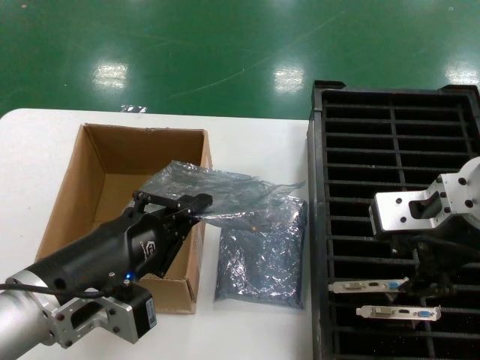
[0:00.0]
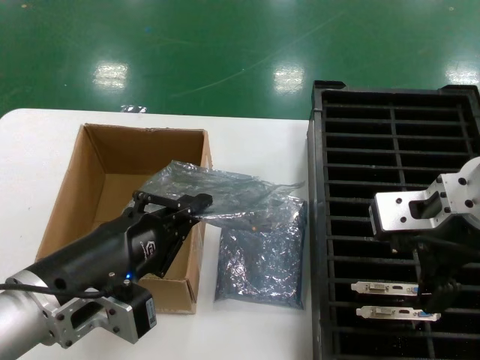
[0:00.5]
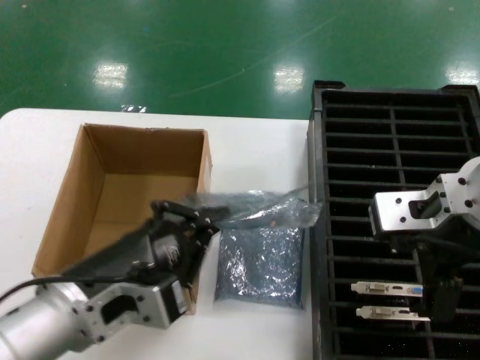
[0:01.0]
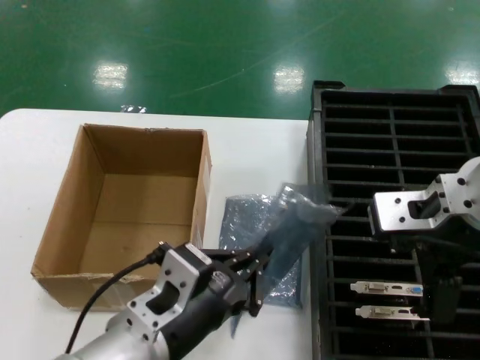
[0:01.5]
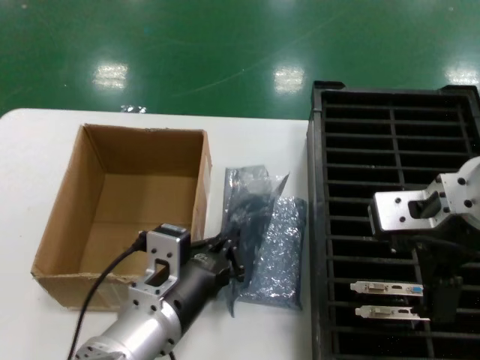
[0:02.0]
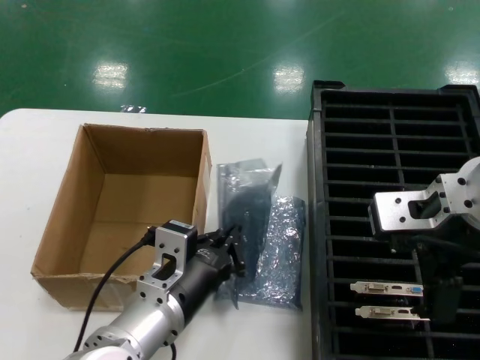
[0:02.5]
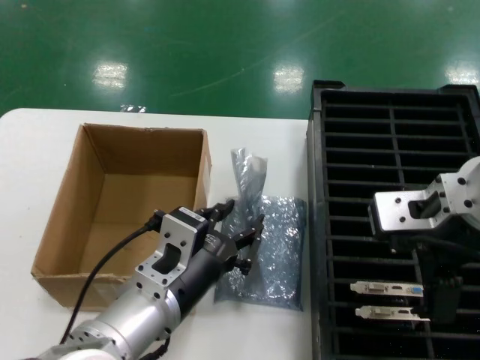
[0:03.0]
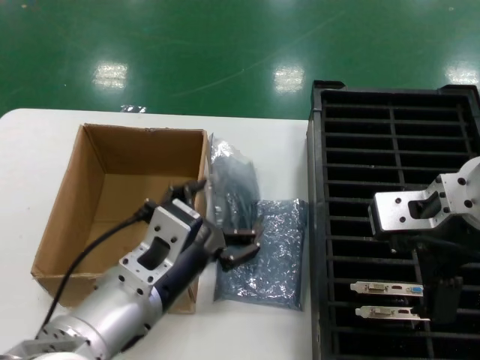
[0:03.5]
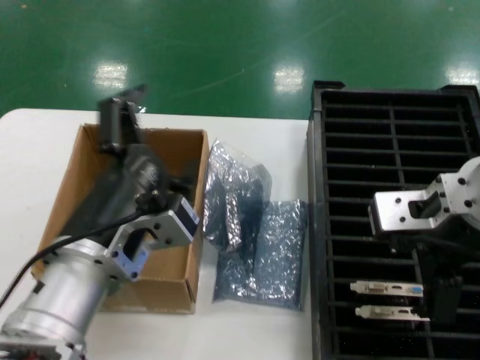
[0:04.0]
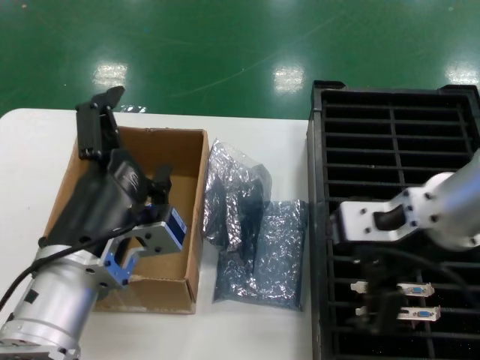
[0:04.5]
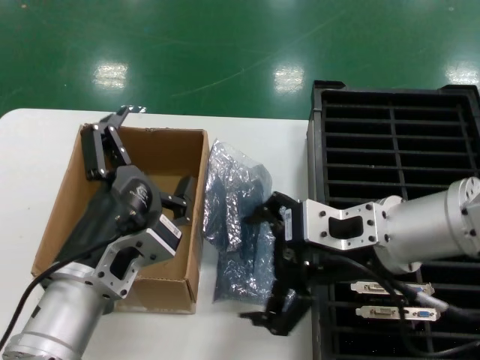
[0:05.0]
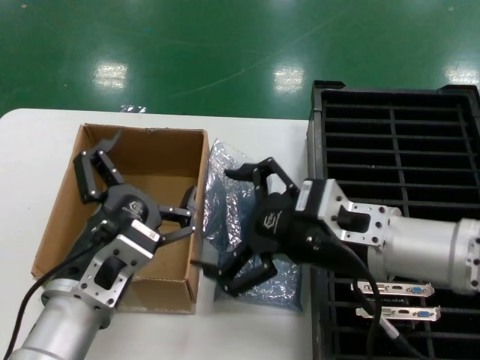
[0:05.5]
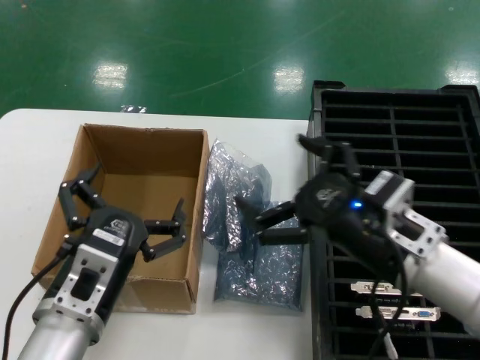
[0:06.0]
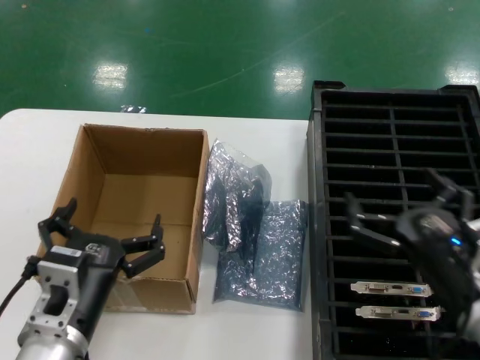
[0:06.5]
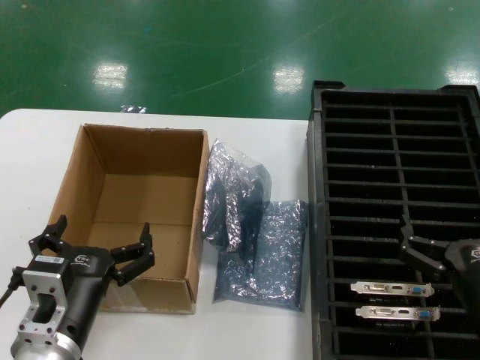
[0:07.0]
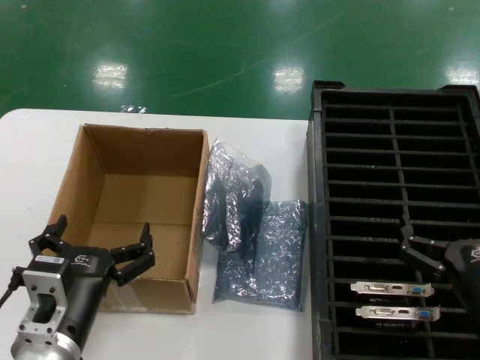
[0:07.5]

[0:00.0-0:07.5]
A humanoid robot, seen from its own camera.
Task of the whole recording: take out graphics card from box remove packaging put into black container.
Step, 0:00.5 to 0:03.0: Place the down the bag.
0:00.0 to 0:02.0: The left hand is displaced to the right and downward by roughly 10 cm.
0:02.0 to 0:04.0: The left hand moves upward, approximately 10 cm.
0:04.0 to 0:05.5: The left hand heads downward, covering roughly 5 cm. Meanwhile the right hand heads downward, covering about 10 cm.
0:05.5 to 0:07.5: The right hand shifts roughly 20 cm downward, to the right and backward. The left hand goes roughly 5 cm downward.

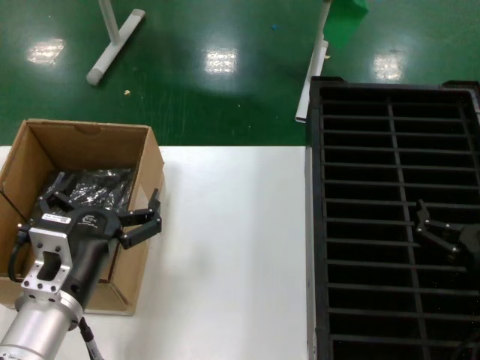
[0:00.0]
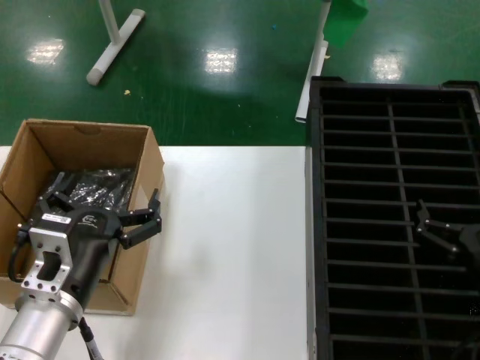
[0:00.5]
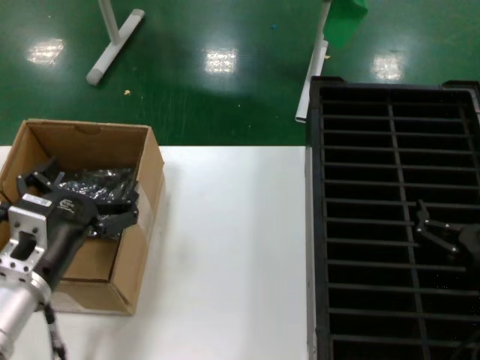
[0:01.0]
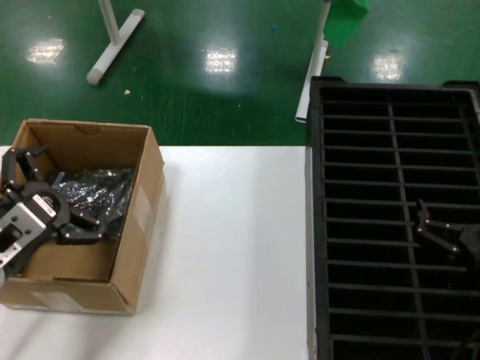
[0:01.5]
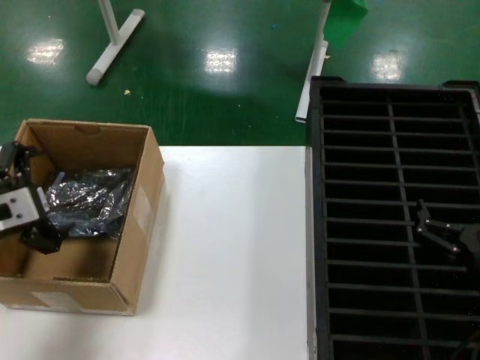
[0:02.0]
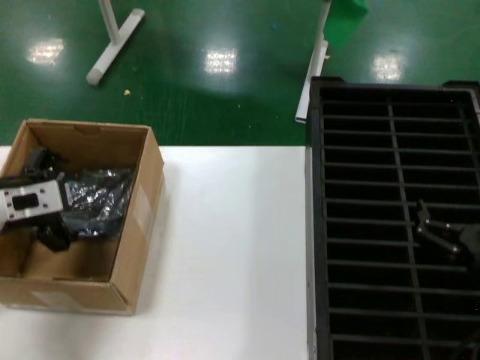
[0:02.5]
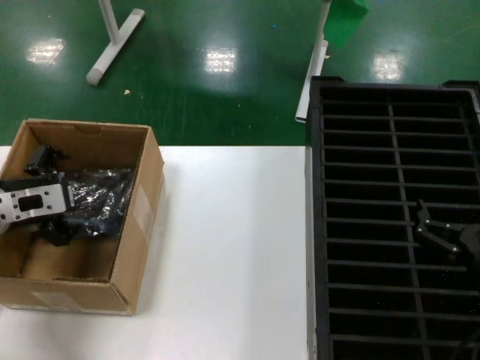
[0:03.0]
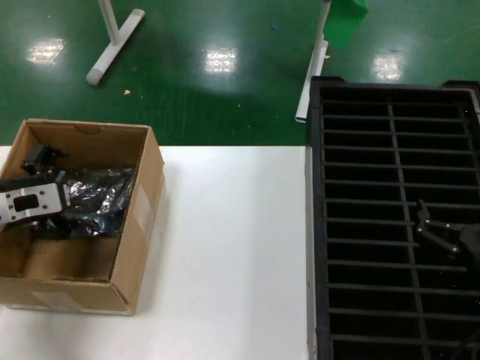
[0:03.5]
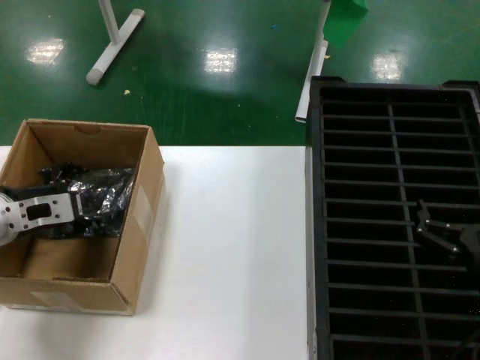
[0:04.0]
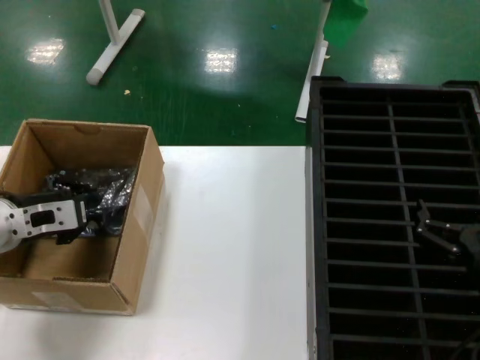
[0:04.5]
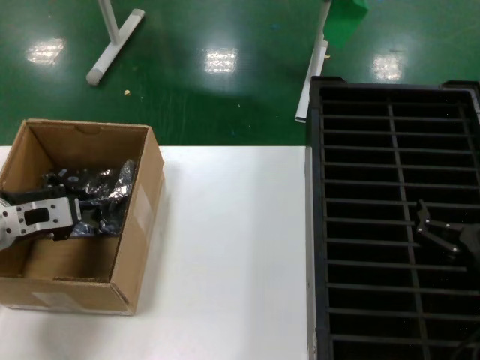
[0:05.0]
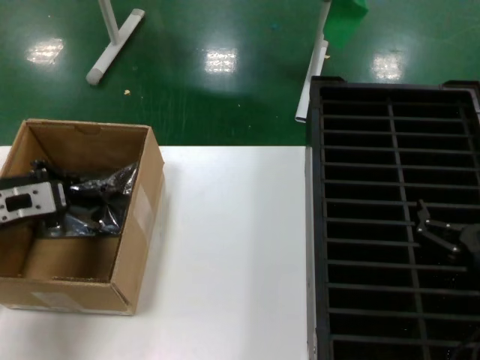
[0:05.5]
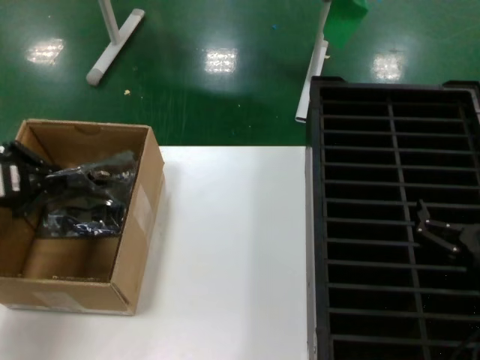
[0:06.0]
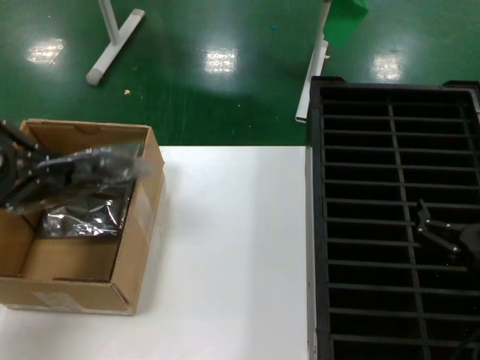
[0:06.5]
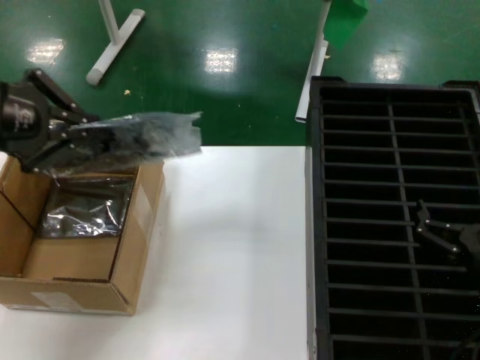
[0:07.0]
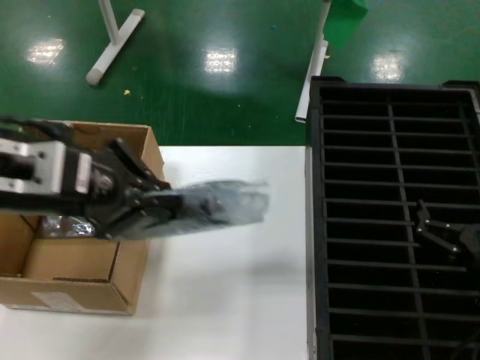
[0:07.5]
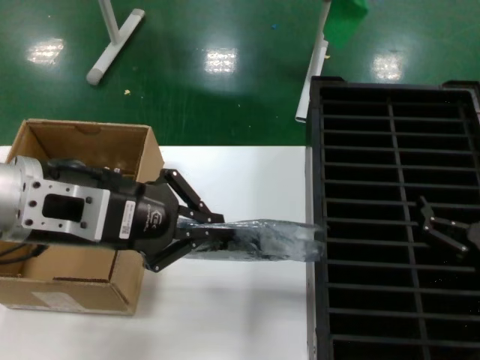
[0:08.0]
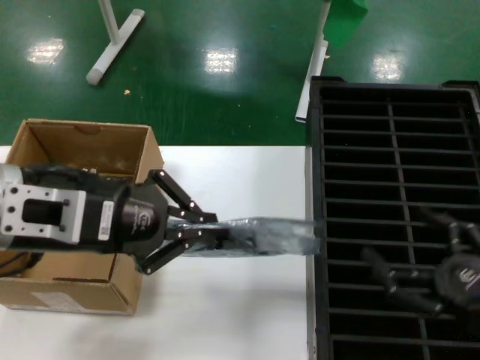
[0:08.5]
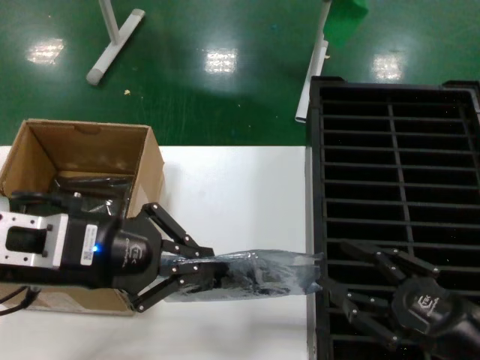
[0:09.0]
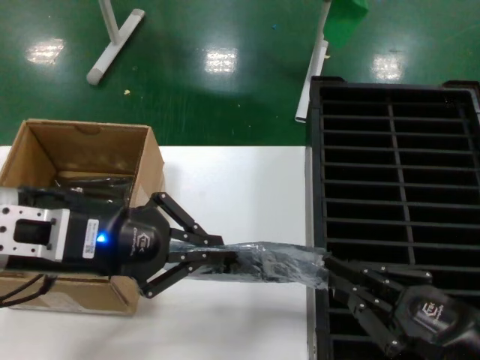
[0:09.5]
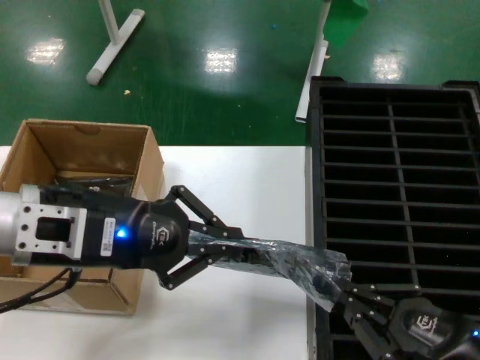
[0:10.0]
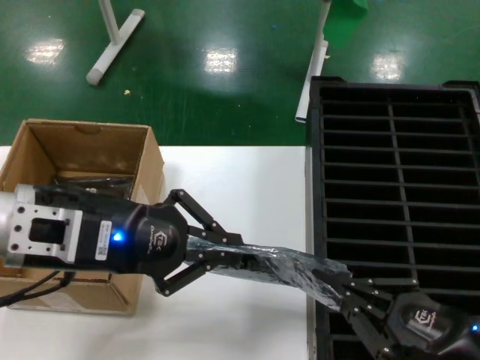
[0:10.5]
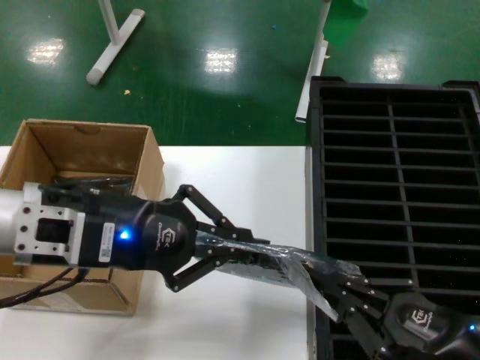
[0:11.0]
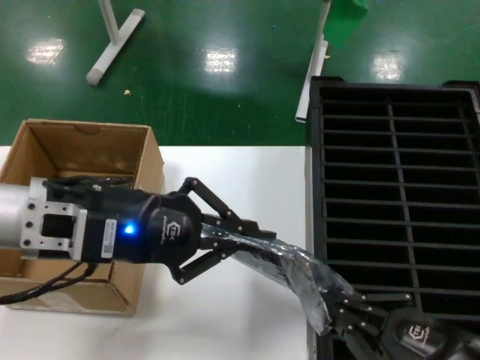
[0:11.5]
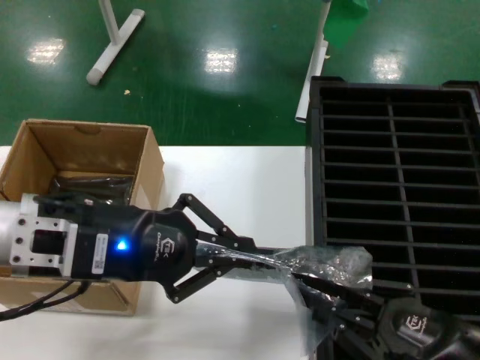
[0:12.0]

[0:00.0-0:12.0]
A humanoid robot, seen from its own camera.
Task of the whole recording: take out graphics card from box remove packaging put into black container.
Step, 0:00.0 to 0:04.5: Grasp the bag.
Step, 0:05.5 to 0:07.5: Lift the bag.
0:00.0 to 0:02.0: The left hand shifts approximately 15 cm to the left, upward and forward.
0:02.0 to 0:04.0: The left hand shifts some 10 cm forward.
0:04.0 to 0:06.0: The left hand travels upward by some 10 cm.
0:06.0 to 0:08.0: The left hand heads to the right, upward and backward, covering about 20 cm.
0:08.0 to 0:10.0: The left hand changes place by some 5 cm.
0:10.0 to 0:12.0: The hands move only a little.

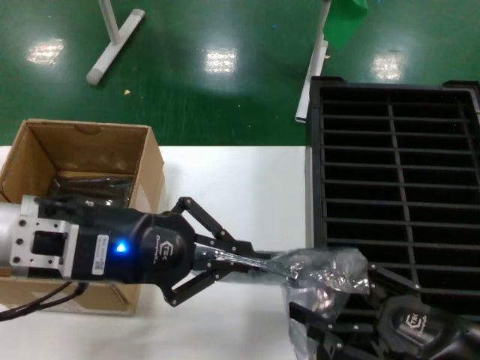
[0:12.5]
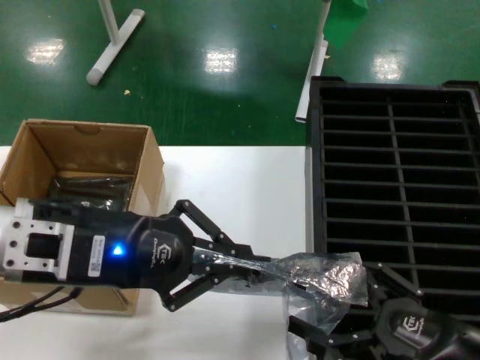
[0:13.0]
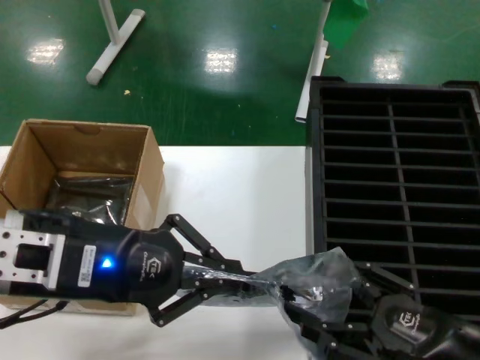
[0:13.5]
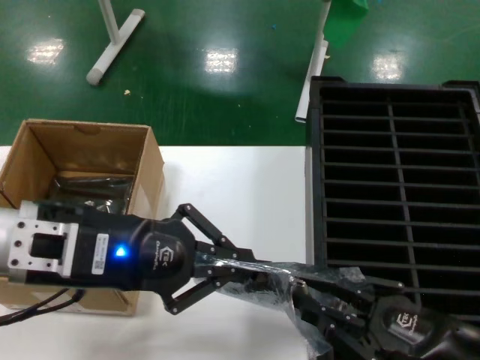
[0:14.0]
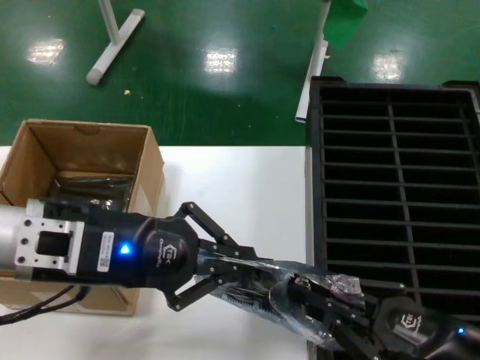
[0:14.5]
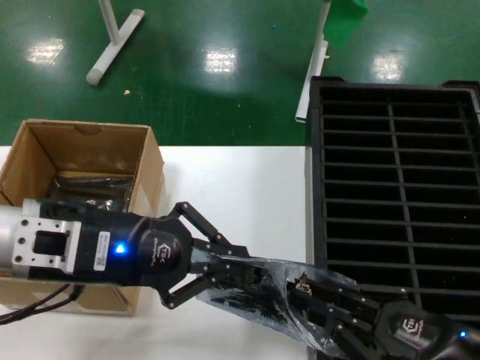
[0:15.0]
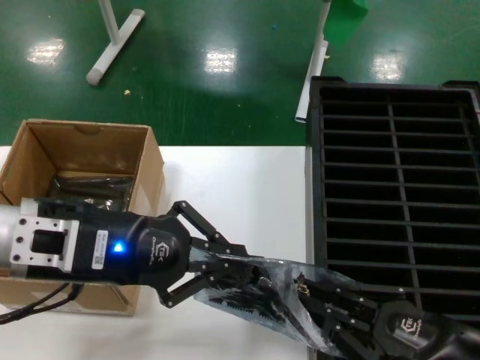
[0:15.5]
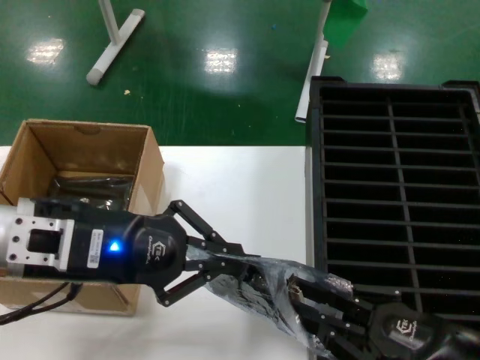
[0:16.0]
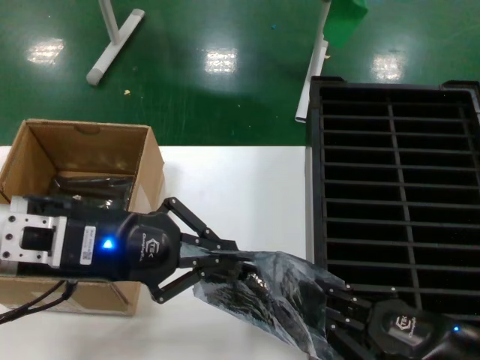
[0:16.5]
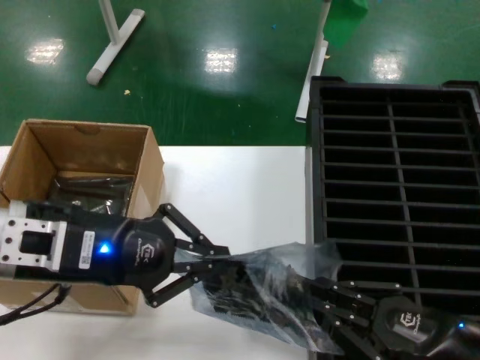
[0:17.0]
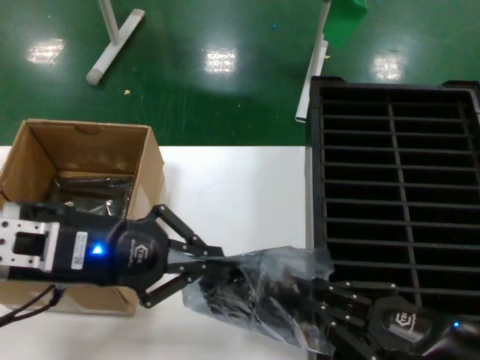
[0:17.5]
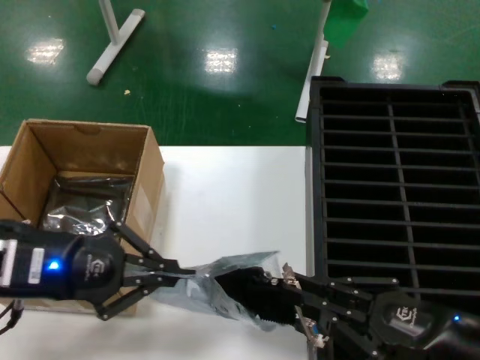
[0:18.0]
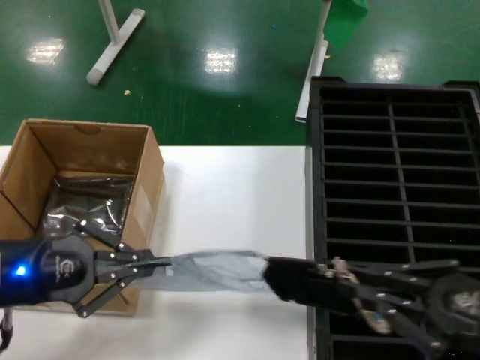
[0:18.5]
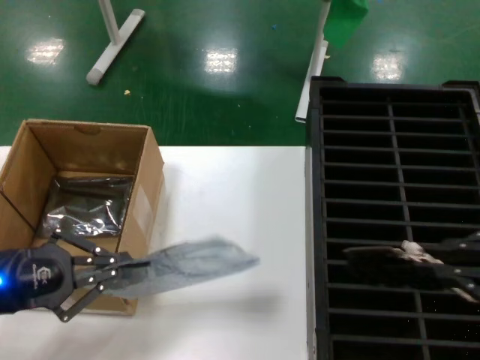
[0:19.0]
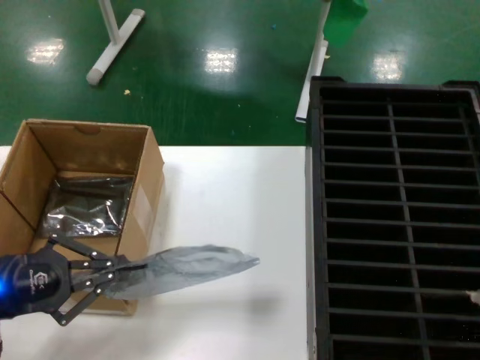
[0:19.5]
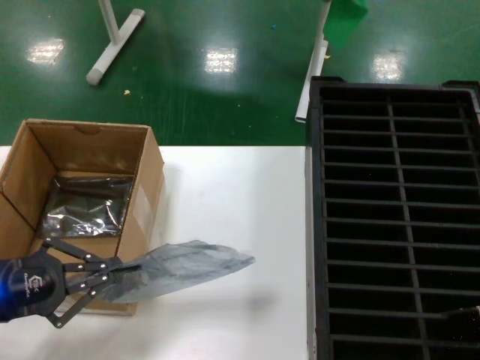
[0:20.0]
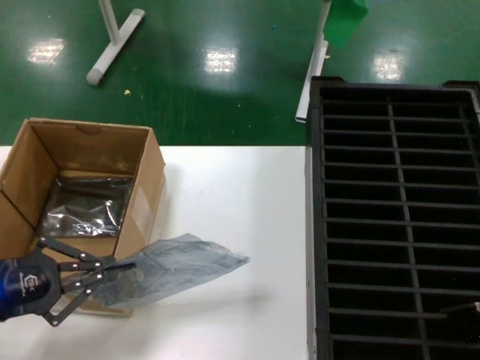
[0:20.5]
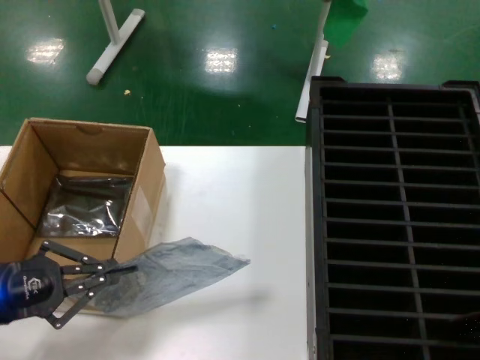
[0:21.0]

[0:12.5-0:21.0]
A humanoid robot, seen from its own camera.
Task of the whole recording: take out graphics card from box remove packaging put into black container.
Step, 0:12.5 to 0:18.5: Take out the hard disk of the bag.
0:12.5 to 0:16.5: There are only small adjustments of the hands.
0:16.5 to 0:19.0: The right hand goes roughly 20 cm upward and to the right. The left hand moves to the left and downward, about 15 cm.
0:19.0 to 0:21.0: The left hand moves approximately 5 cm; the right hand is displaced upward by roughly 10 cm.
